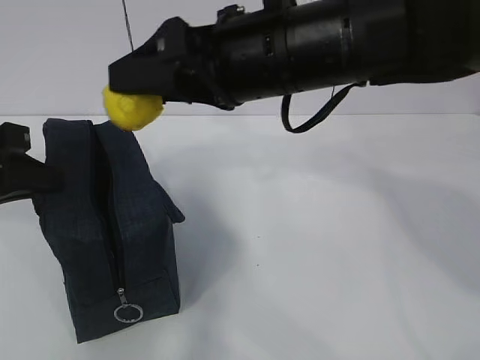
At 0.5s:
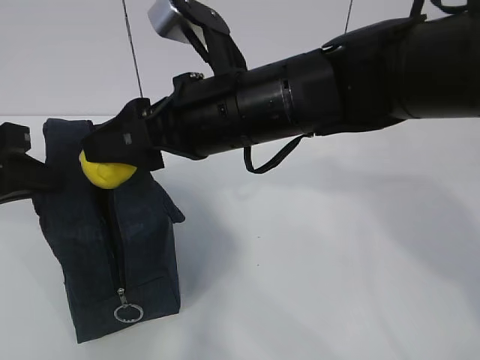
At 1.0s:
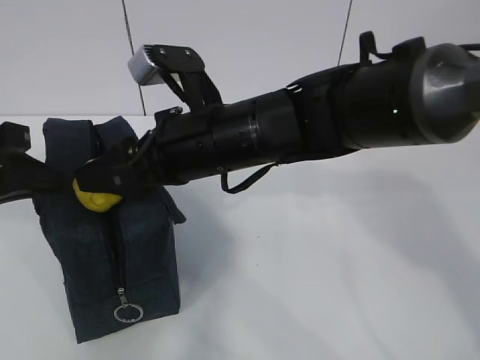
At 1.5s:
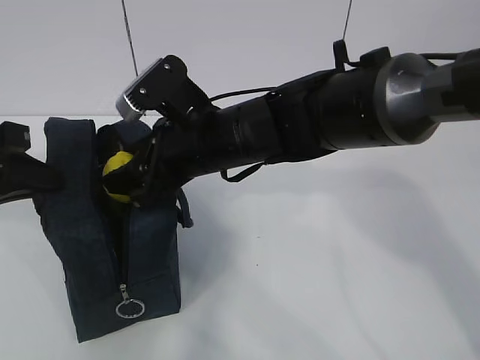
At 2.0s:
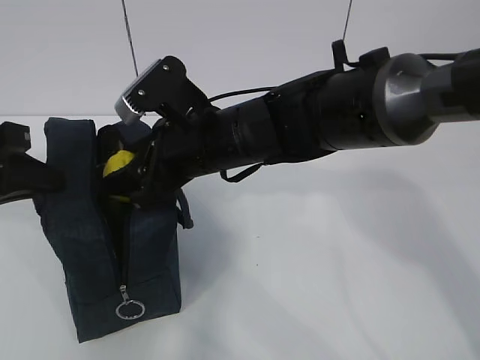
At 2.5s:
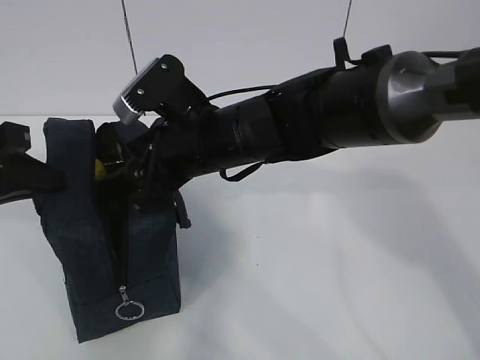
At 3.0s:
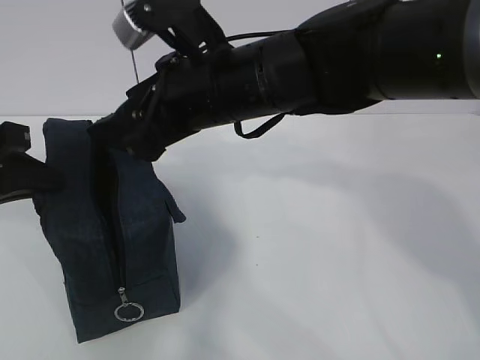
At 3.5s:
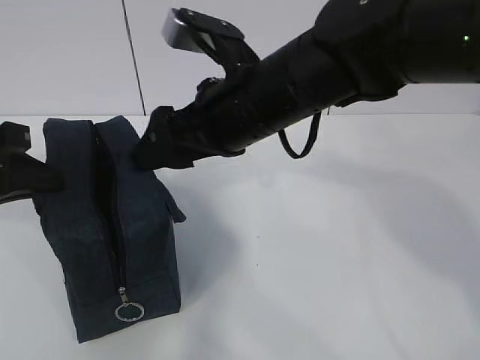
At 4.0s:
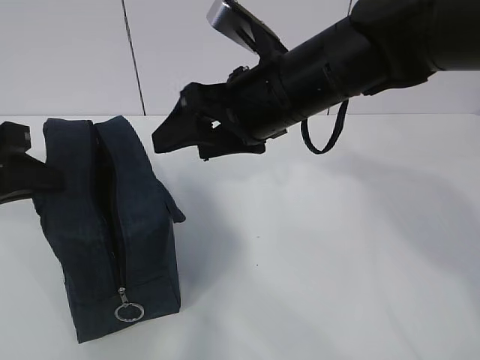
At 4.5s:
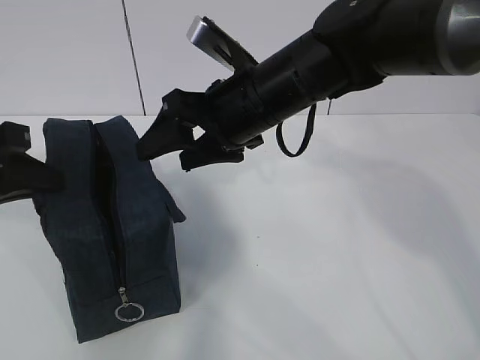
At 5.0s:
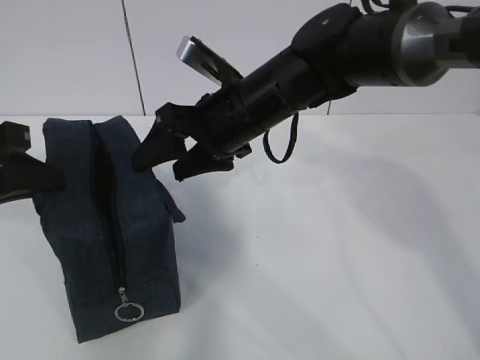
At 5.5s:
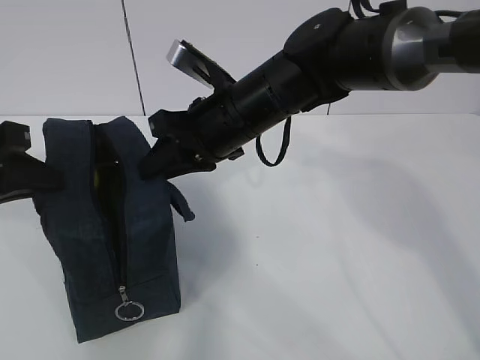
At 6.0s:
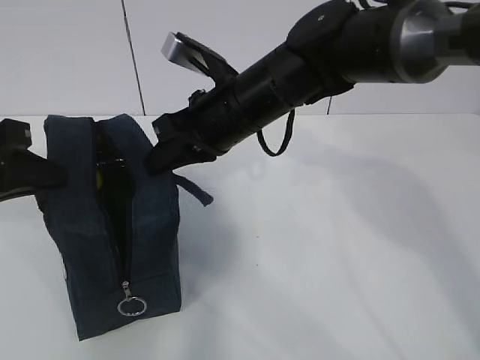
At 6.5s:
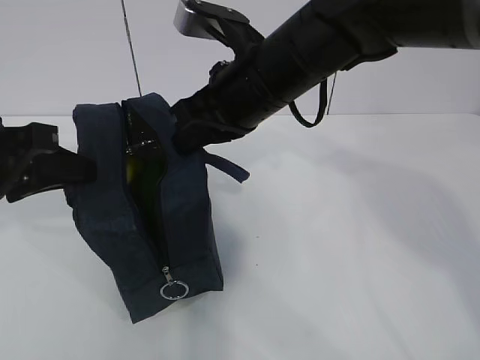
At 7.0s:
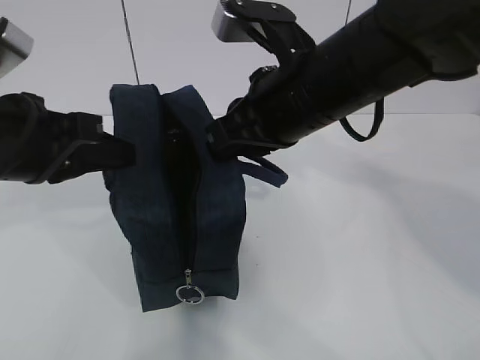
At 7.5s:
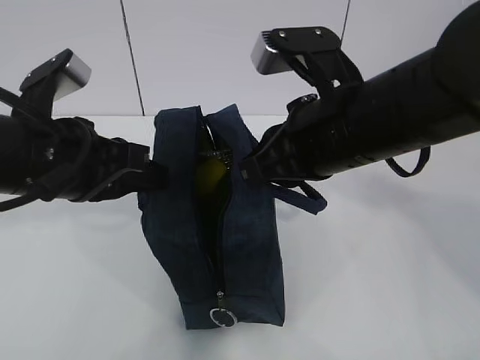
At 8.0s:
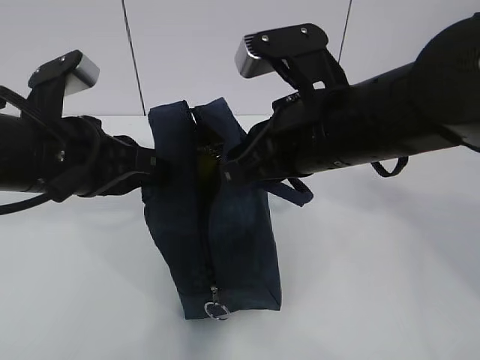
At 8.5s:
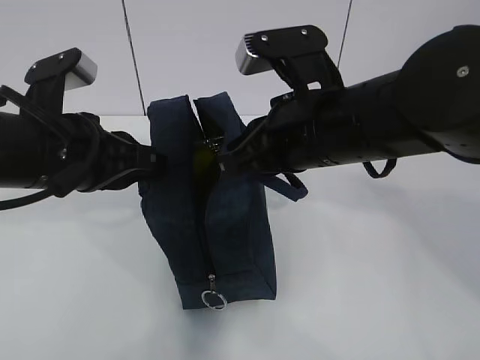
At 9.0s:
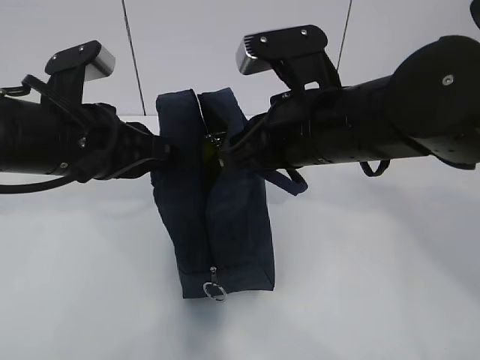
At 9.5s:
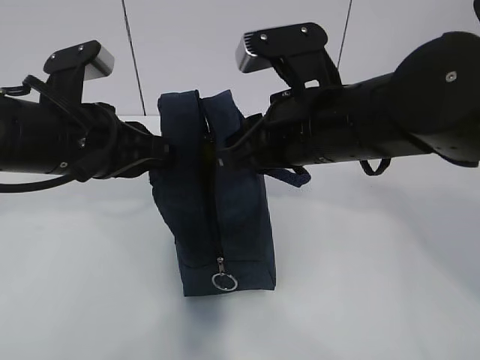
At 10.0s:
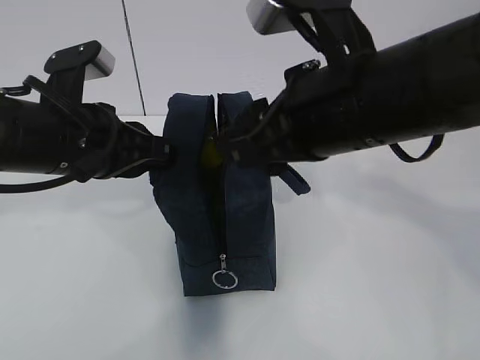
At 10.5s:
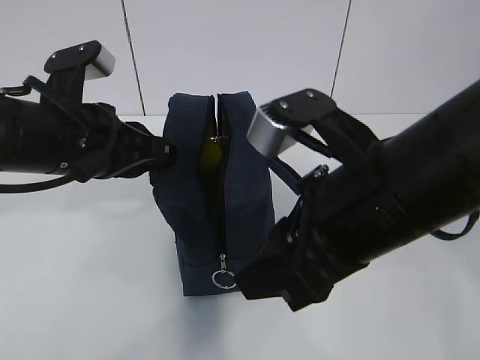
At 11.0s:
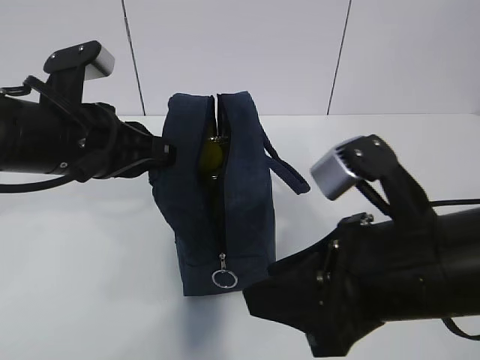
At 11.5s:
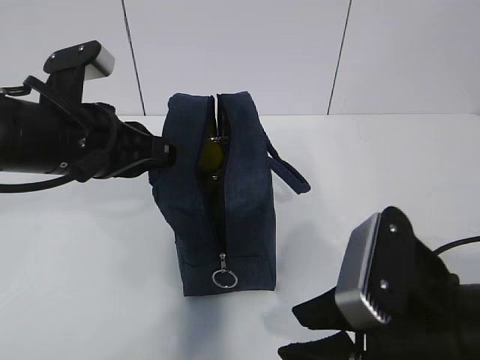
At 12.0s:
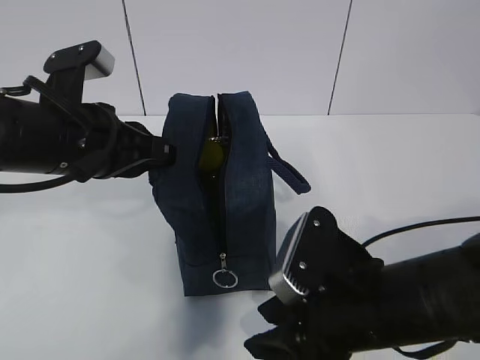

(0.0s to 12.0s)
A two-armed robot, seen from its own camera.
Step, 0.0s - 11.0s: Grab the lunch bag with your left hand.
0.0s - 2.0s: The right gripper heads downward and to the left, covering approximately 10 cm.
2.0s - 4.0s: The right gripper is displaced to the right and upward by some 10 cm.
4.0s - 6.0s: The right gripper changes place by roughly 5 cm, and closes its fingers.
6.0s - 8.0s: The left gripper is displaced to the right by about 10 cm, while the right gripper shifts about 10 cm backward and to the right.
8.0s - 10.0s: The right gripper opens its fingers.
10.0s - 12.0s: The right gripper heads downward and backward, covering approximately 15 cm.

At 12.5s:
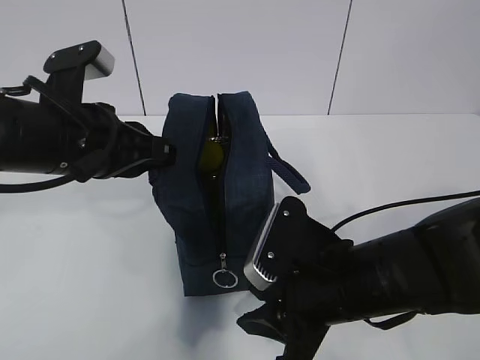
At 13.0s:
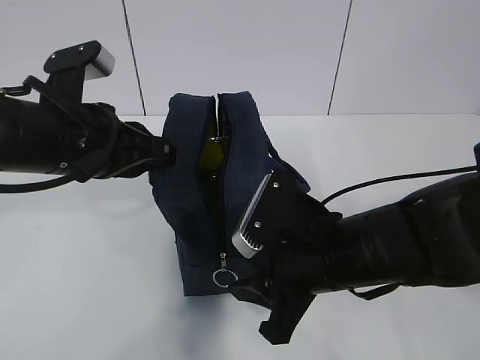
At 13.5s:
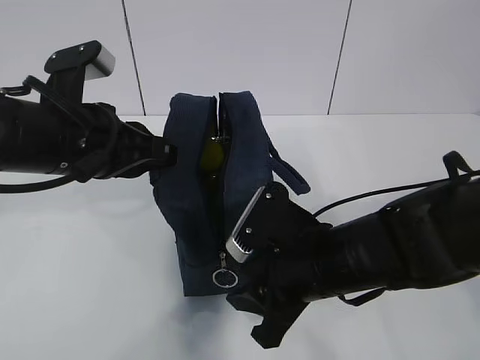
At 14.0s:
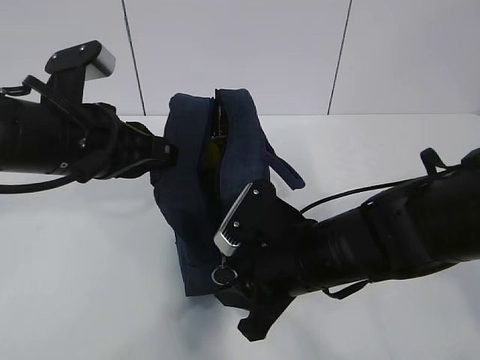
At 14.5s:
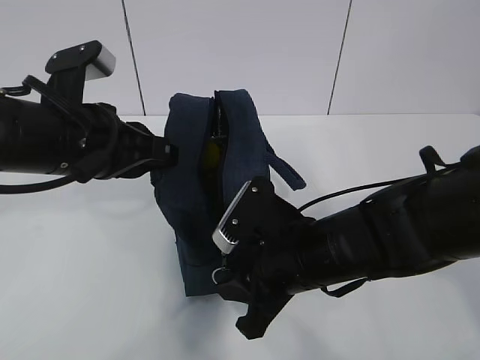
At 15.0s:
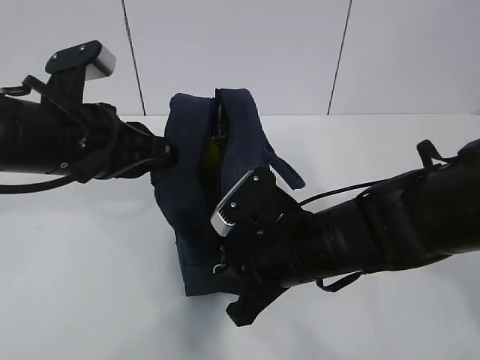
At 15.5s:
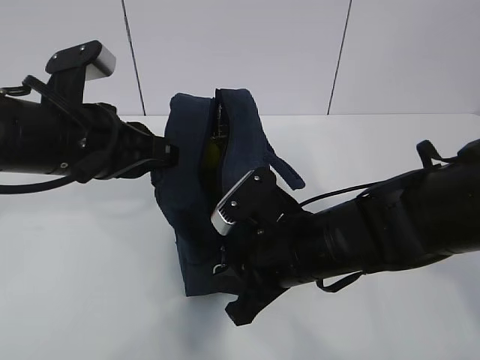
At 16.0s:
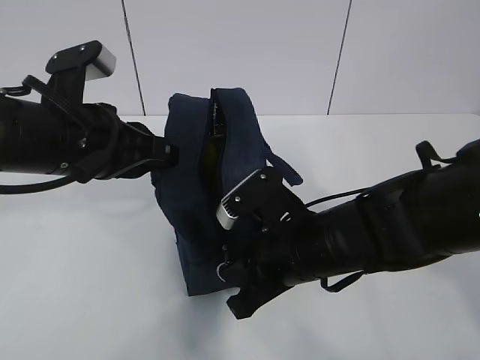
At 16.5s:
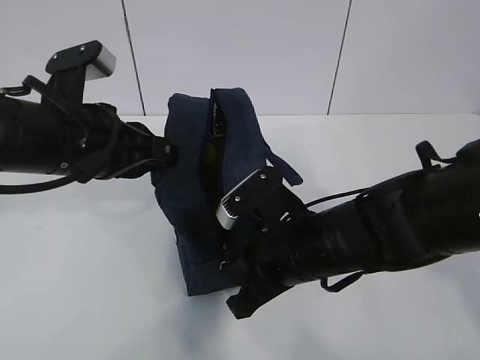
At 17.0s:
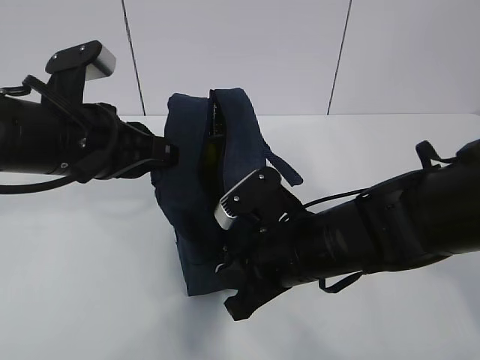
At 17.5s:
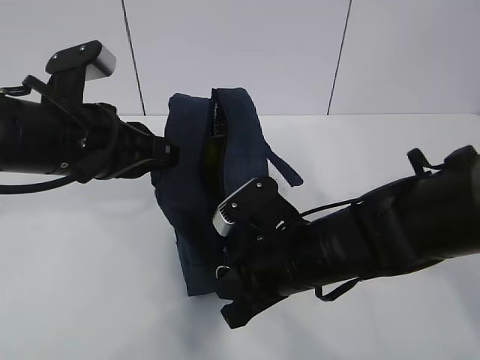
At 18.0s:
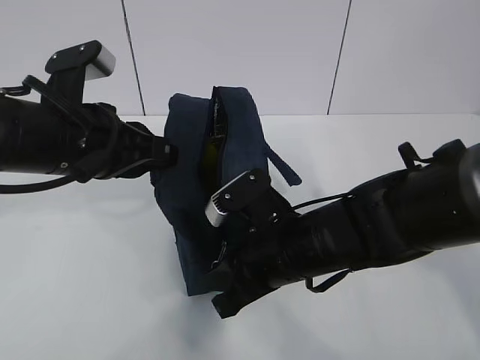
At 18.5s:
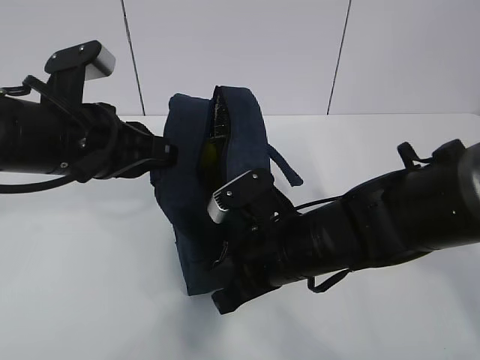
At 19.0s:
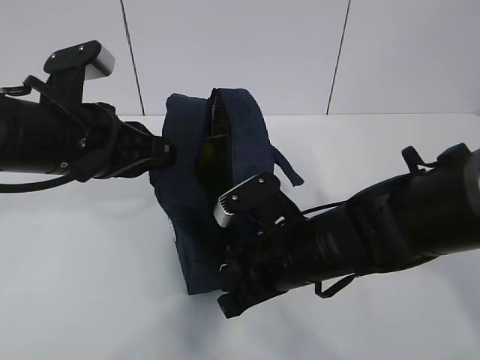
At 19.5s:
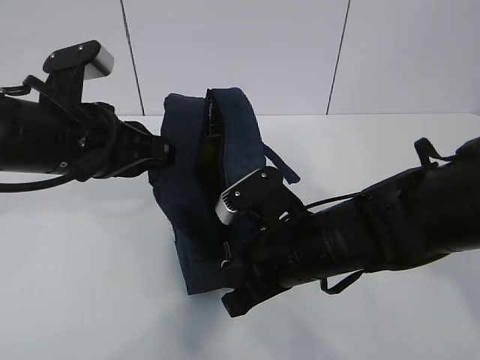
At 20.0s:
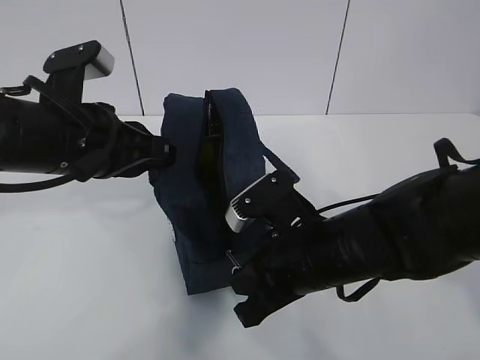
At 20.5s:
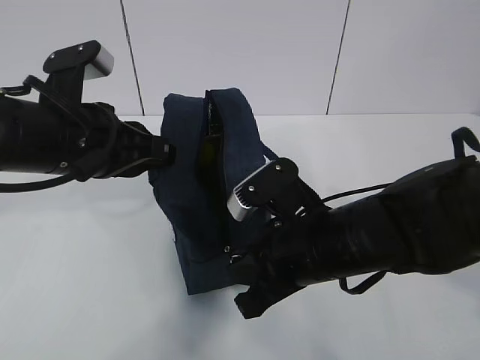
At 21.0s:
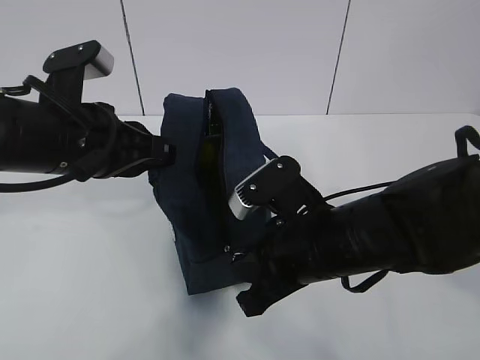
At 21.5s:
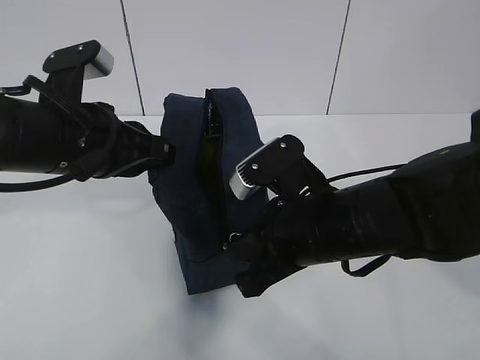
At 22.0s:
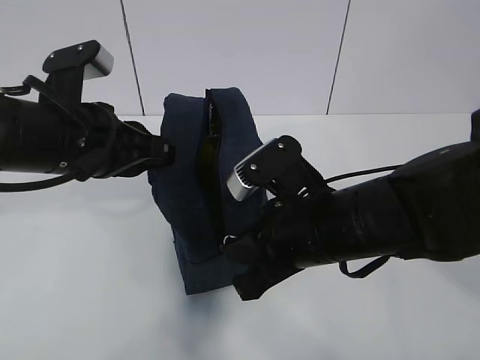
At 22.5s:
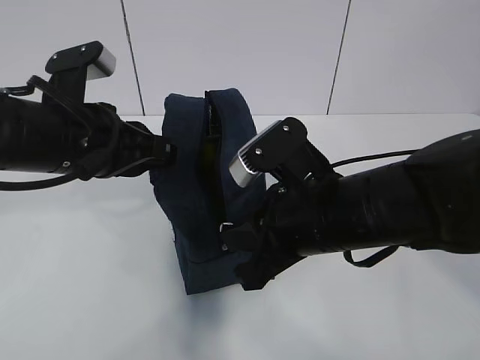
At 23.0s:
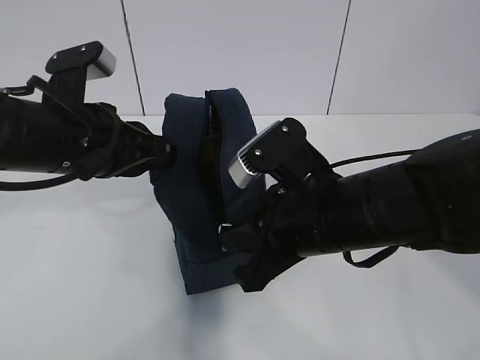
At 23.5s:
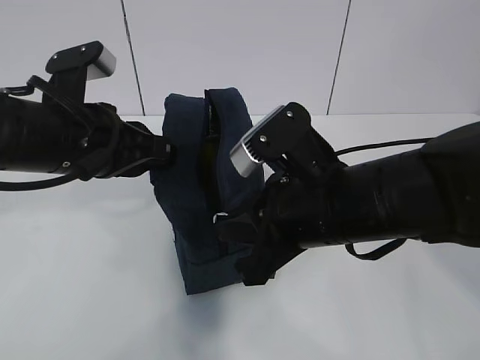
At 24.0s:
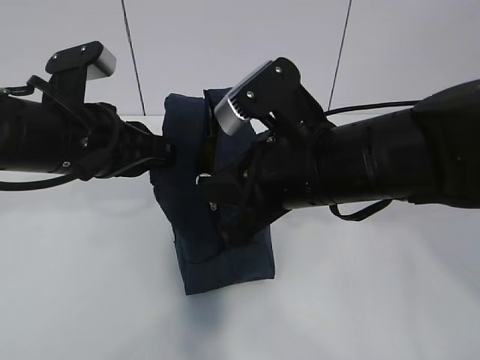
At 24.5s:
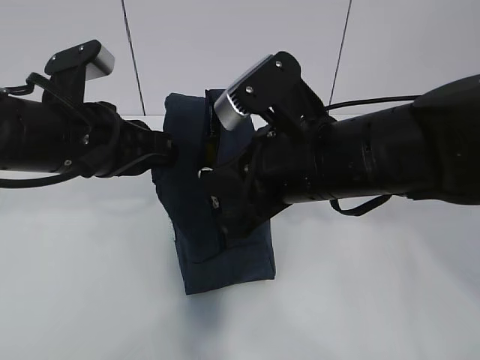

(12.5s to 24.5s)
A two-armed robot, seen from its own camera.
Step, 12.5s - 21.5s: Pull the zipper with your right hand.
12.5s - 14.5s: The grippers move only a little.
14.5s - 16.5s: The right gripper closes up.
16.5s - 20.5s: The grippers move only a little.
20.5s - 22.5s: There are only small adjustments of the grippers.
22.5s - 24.5s: The grippers stay close to where they were, moving slightly.

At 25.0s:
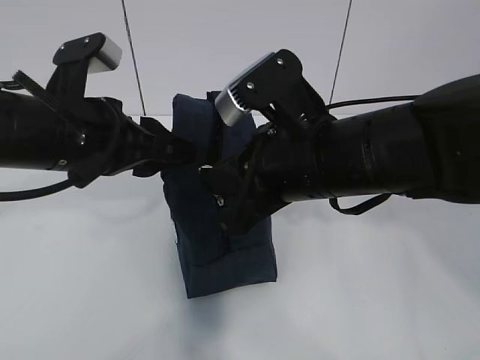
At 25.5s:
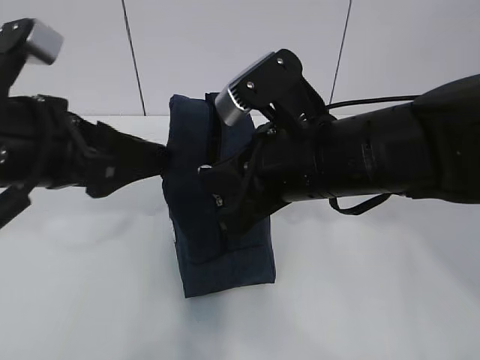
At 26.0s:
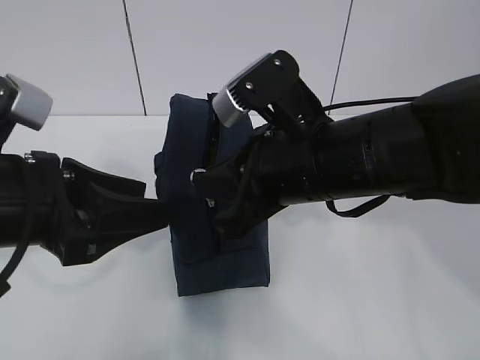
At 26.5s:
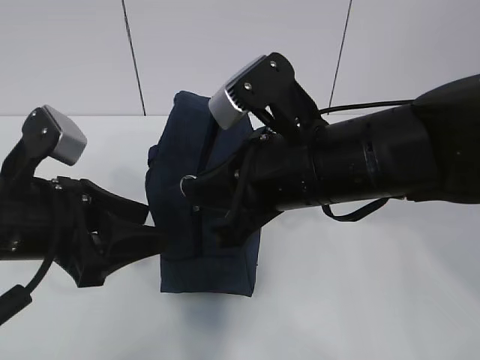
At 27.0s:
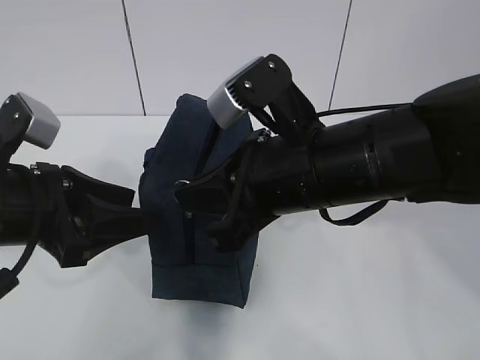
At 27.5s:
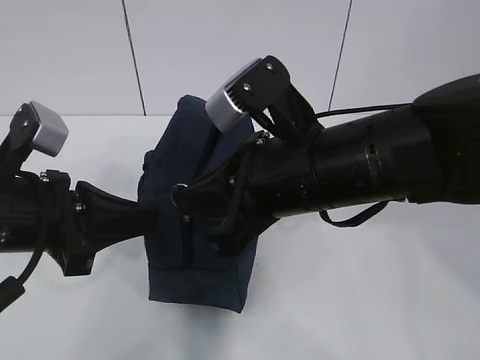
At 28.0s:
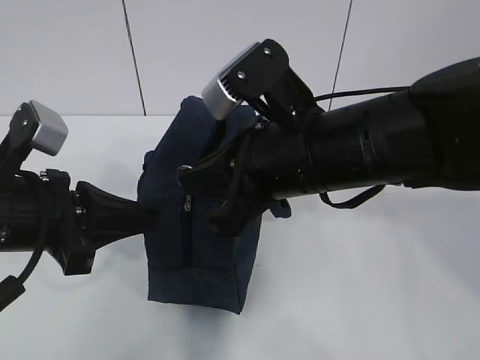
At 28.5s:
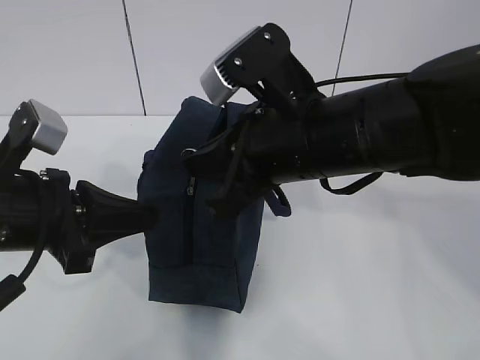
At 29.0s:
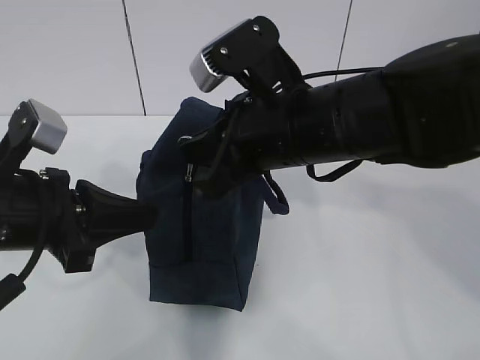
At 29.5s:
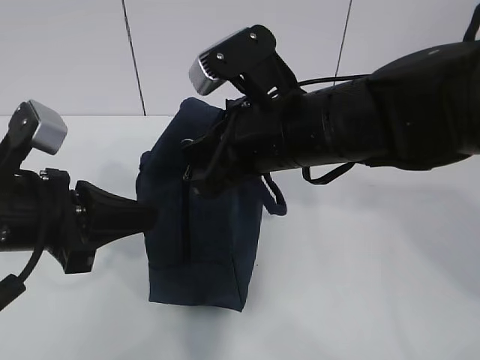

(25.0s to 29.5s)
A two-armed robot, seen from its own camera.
25.0s - 27.0s: The left gripper travels to the left by approximately 5 cm, and opens its fingers.
27.0s - 29.5s: The left gripper closes its fingers.
